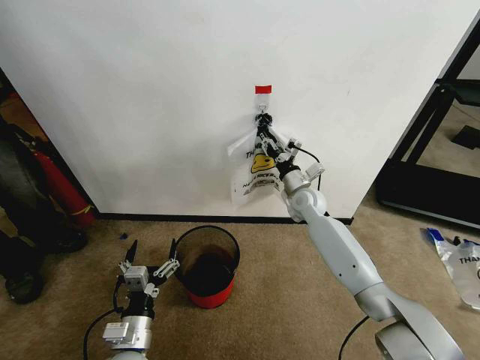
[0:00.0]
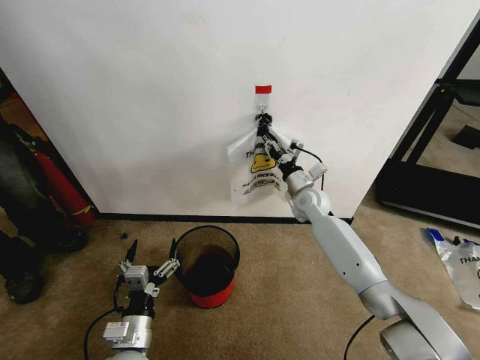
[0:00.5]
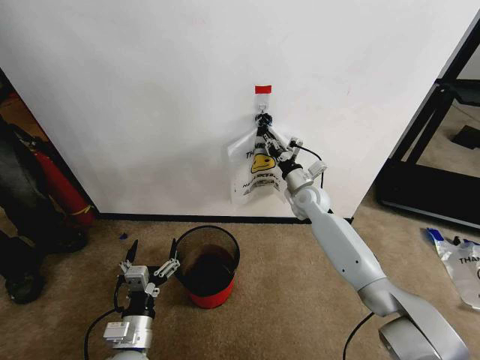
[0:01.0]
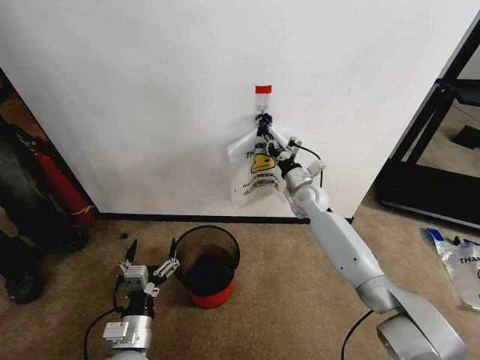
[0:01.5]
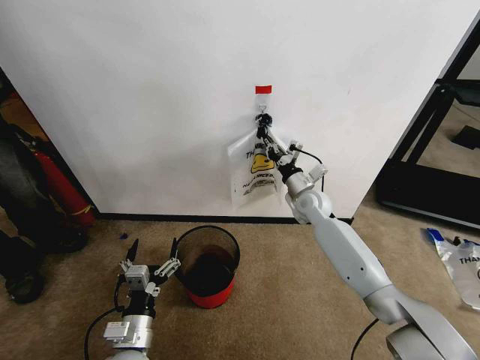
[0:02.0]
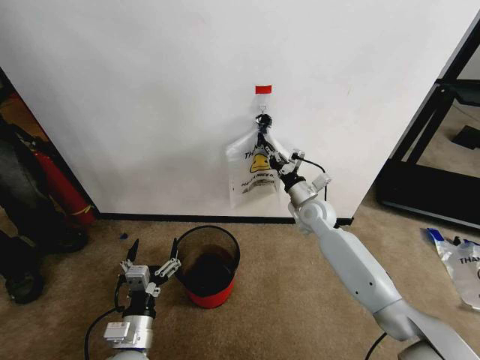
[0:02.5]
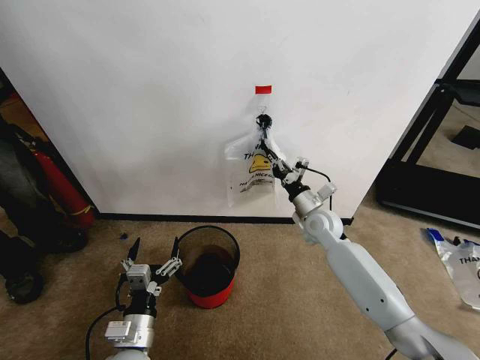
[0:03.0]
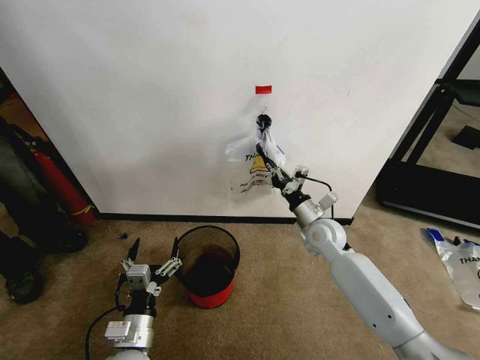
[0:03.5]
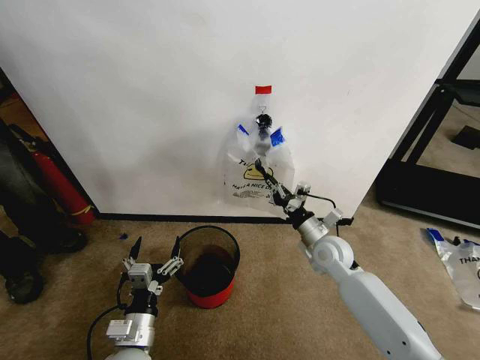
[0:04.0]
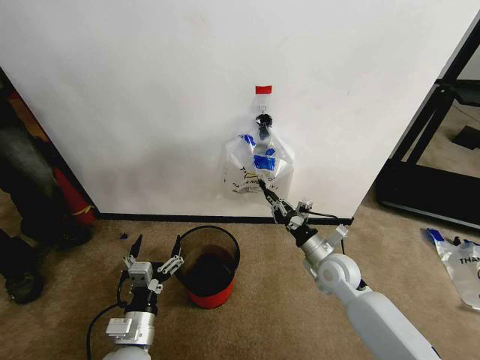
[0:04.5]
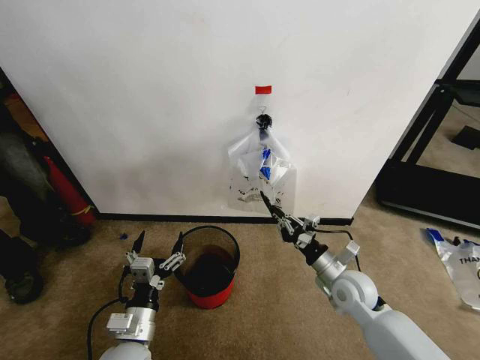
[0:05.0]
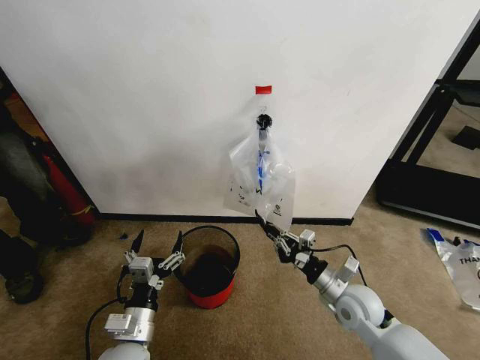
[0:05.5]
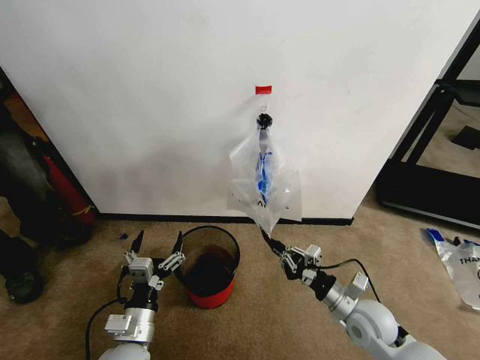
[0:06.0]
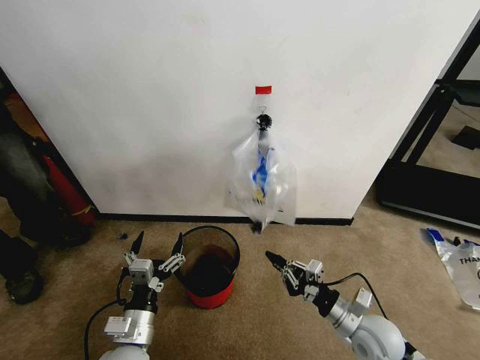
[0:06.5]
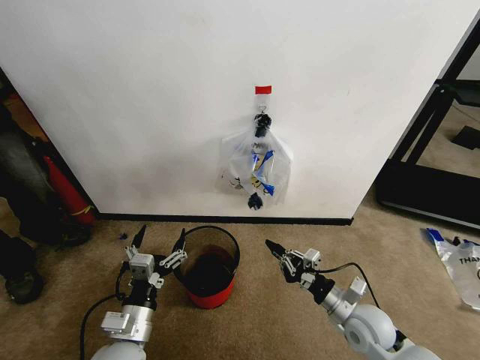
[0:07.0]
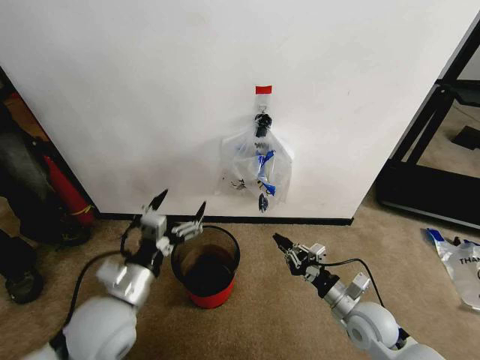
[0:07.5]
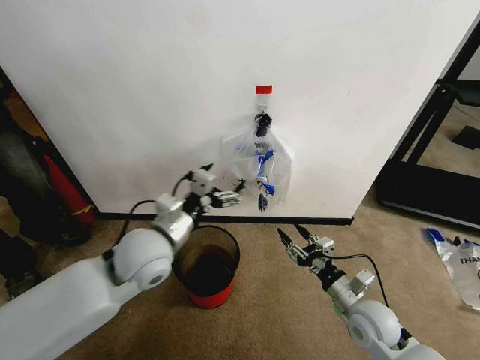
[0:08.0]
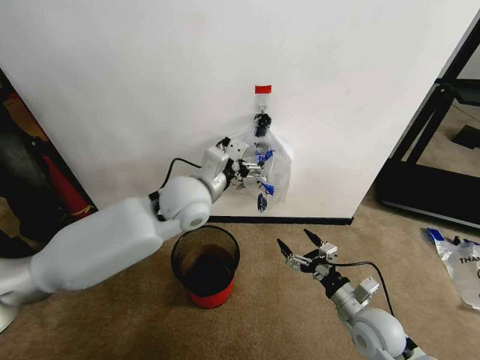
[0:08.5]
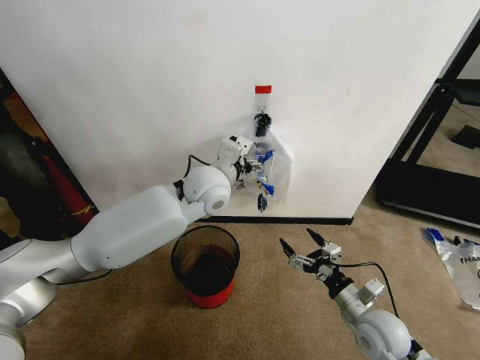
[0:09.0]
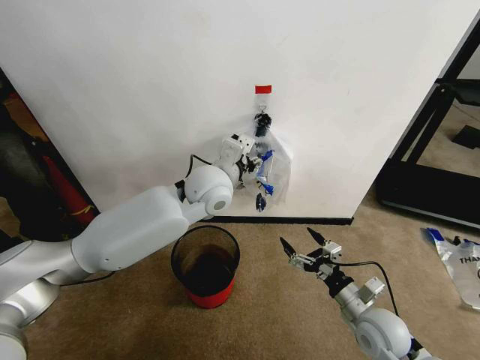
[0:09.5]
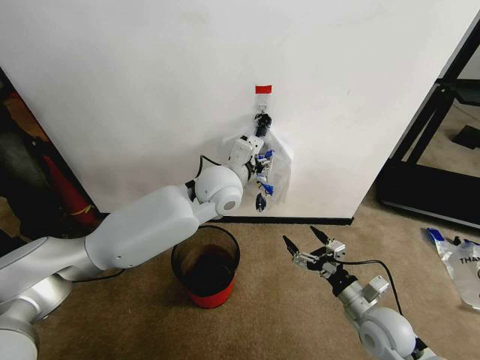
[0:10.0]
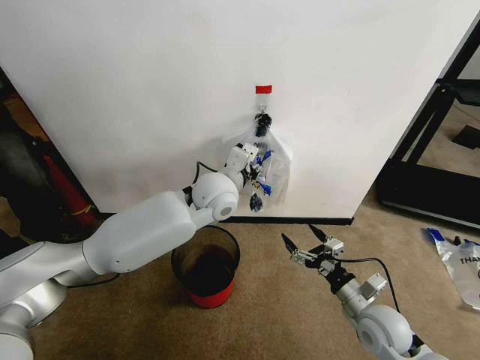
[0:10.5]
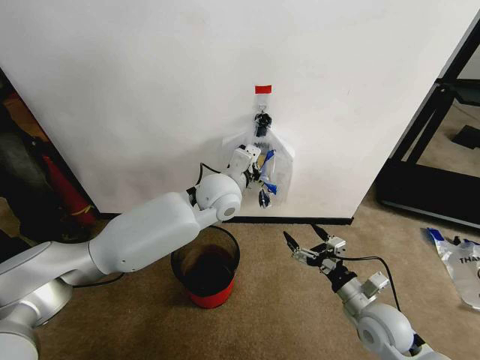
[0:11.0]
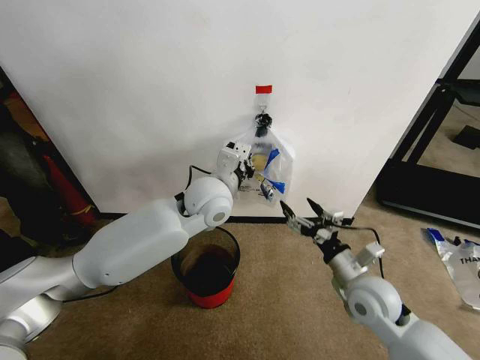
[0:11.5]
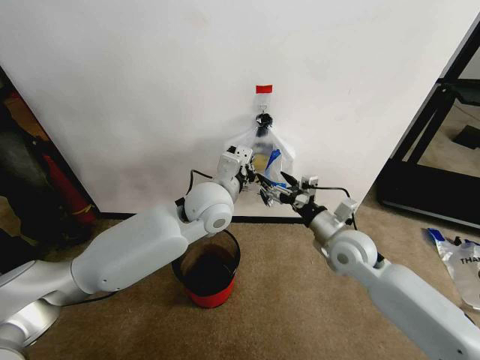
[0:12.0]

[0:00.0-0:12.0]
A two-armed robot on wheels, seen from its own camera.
Task of the whole recording: Pick up the garbage bag from the wall and place it over the trash bin.
0:00.0 to 0:02.0: The right gripper closes its fingers.
0:02.0 to 0:04.0: The right gripper goes some 15 cm backward.
0:04.0 to 0:06.0: The right gripper travels backward by approximately 15 cm.
0:06.0 to 0:08.0: The left gripper is displaced upward and forward by some 20 cm, while the right gripper opens its fingers.
0:08.0 to 0:10.0: The left gripper is displaced to the right and forward by approximately 20 cm, while the right gripper opens.
0:10.0 to 0:12.0: The right gripper moves forward, upward and to the left, some 15 cm. The left gripper closes.

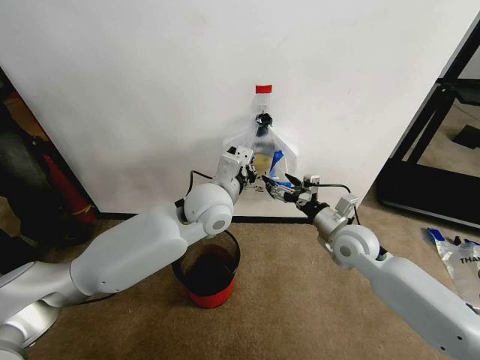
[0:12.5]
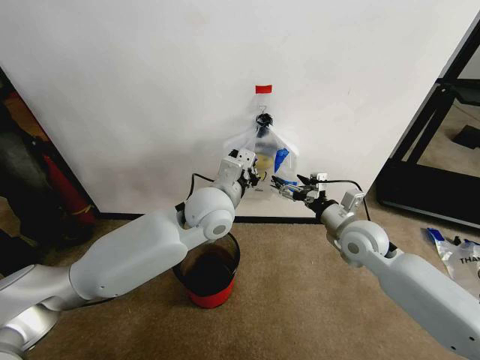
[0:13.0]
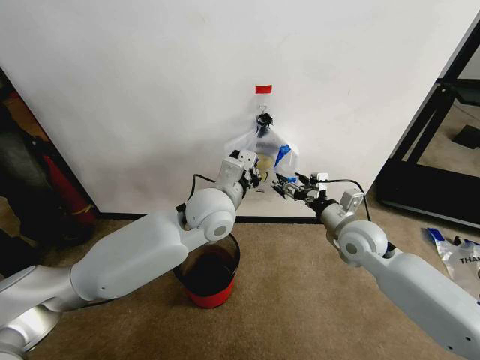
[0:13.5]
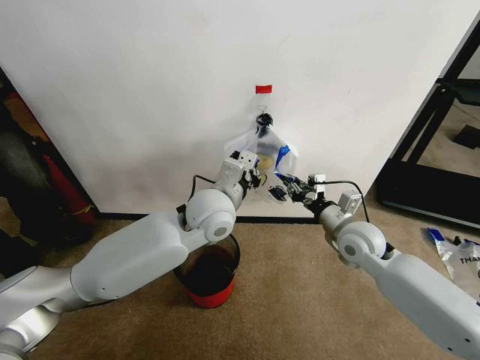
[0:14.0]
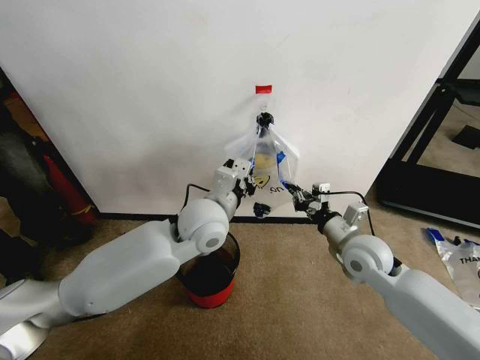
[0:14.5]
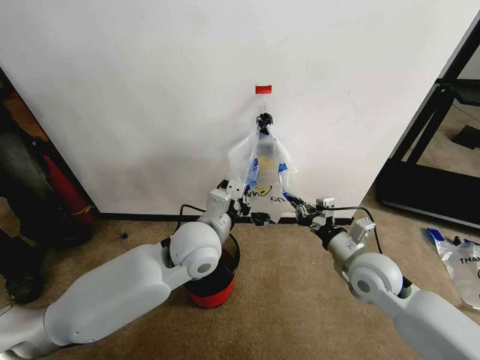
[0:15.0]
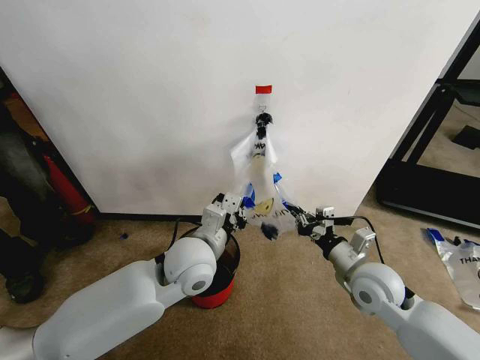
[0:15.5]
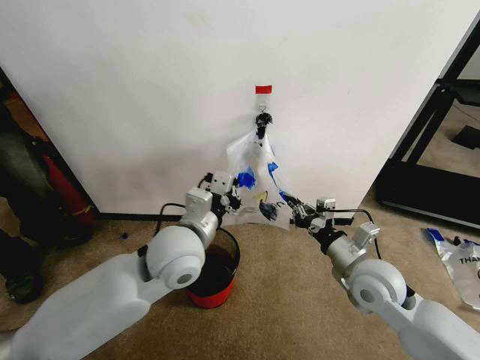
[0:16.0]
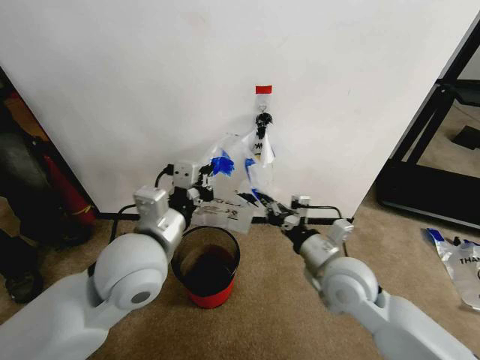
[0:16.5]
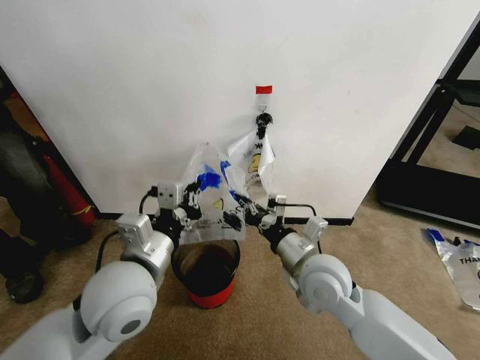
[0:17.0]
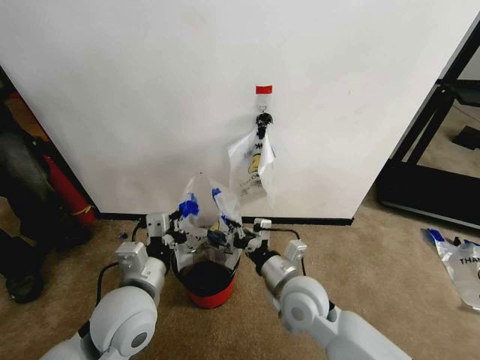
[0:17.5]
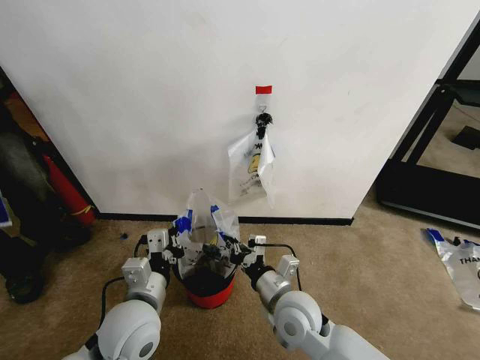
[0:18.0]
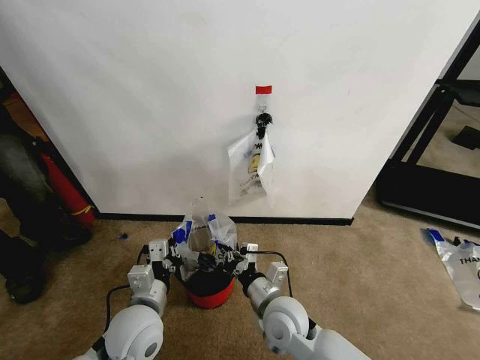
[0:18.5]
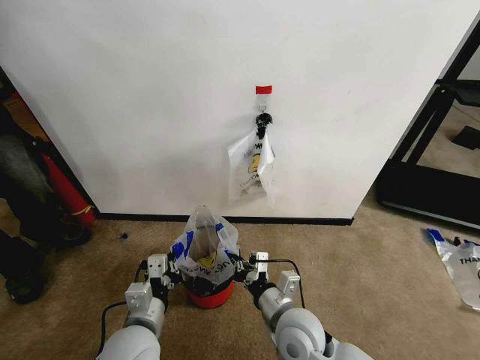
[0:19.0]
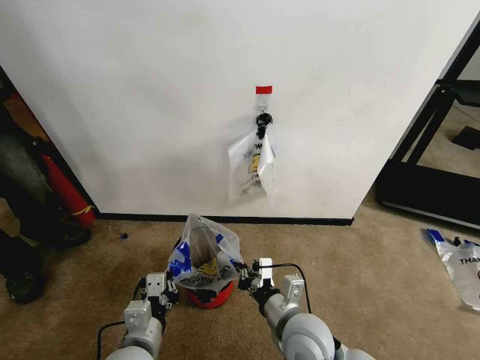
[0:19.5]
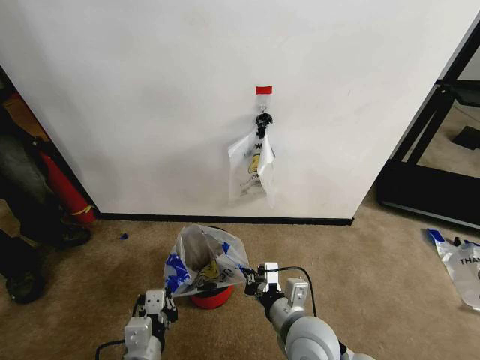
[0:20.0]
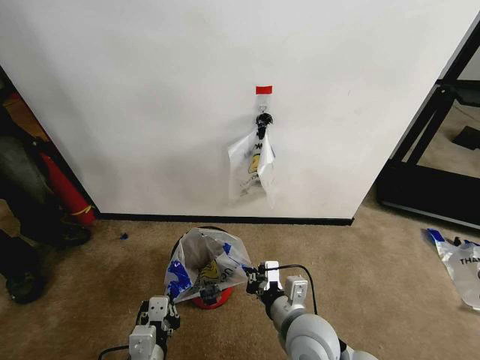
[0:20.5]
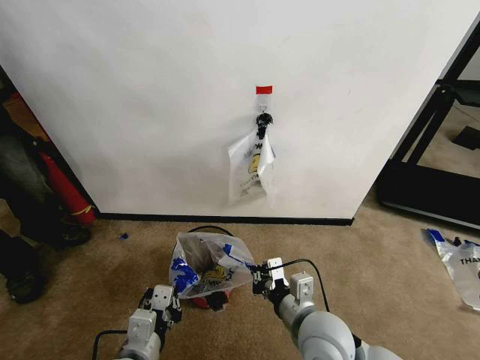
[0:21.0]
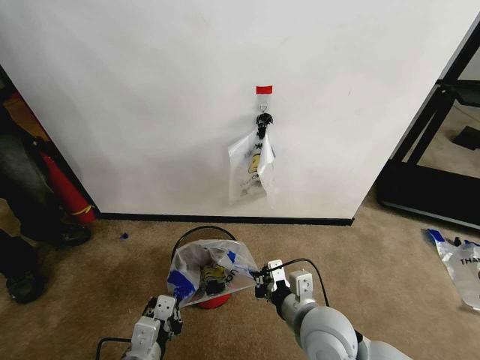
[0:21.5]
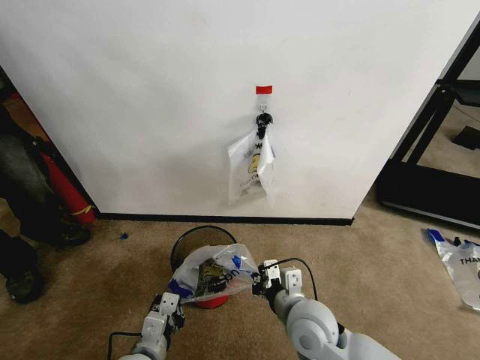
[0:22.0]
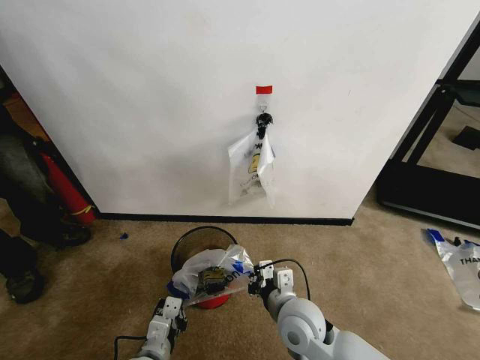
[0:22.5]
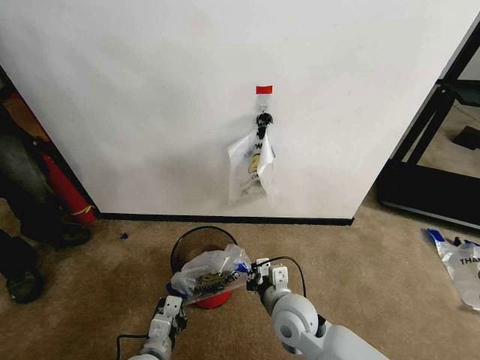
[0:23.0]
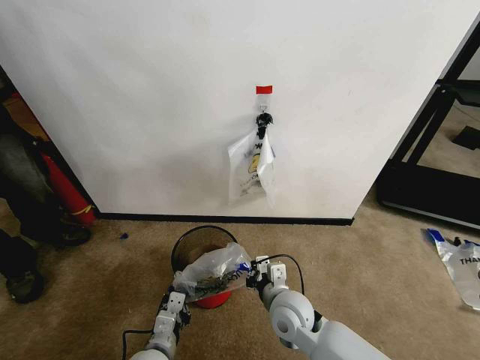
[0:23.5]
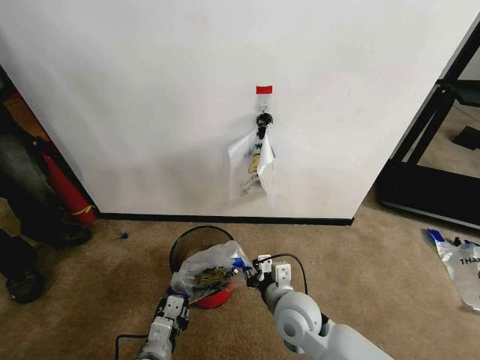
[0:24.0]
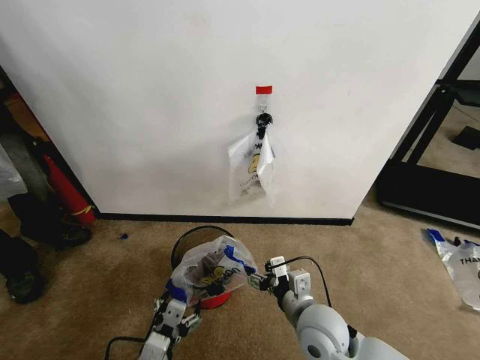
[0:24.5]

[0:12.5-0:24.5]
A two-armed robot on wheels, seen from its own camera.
Task of the whole recording: Pick up the garbage bag from the wall and place it over the trash bin.
0:12.5 to 0:14.5: The right gripper closes its fingers.
0:14.5 to 0:16.5: The right gripper moves to the left and backward, some 10 cm. Meanwhile the left gripper heads backward and to the left, covering roughly 15 cm.
0:16.5 to 0:18.5: The right gripper heads downward and to the left, covering some 15 cm. Meanwhile the left gripper goes some 15 cm downward.
0:18.5 to 0:20.5: The right gripper changes place by some 5 cm. Meanwhile the left gripper goes some 10 cm backward.
0:20.5 to 0:22.5: The left gripper moves downward, some 5 cm.
0:22.5 to 0:24.5: The left gripper shifts by roughly 5 cm, and opens. The right gripper opens.

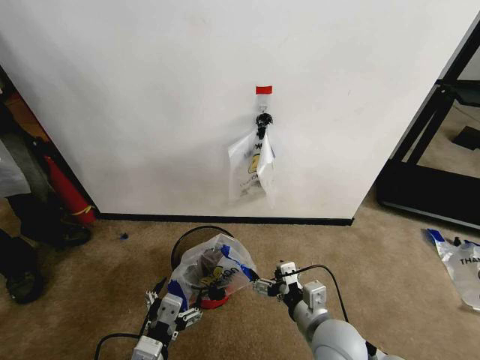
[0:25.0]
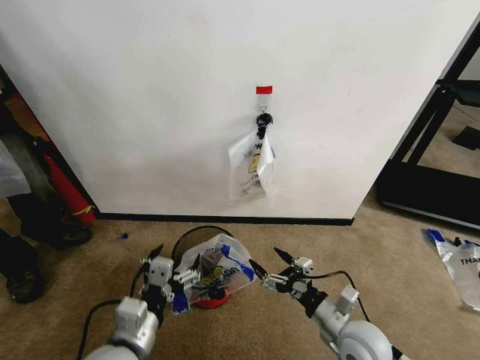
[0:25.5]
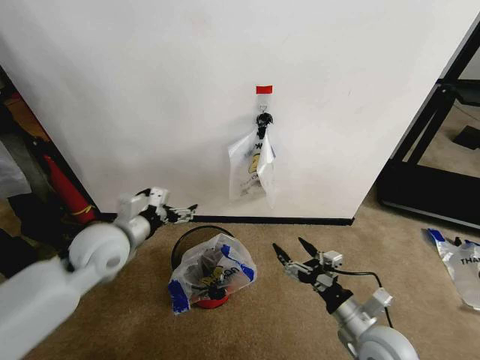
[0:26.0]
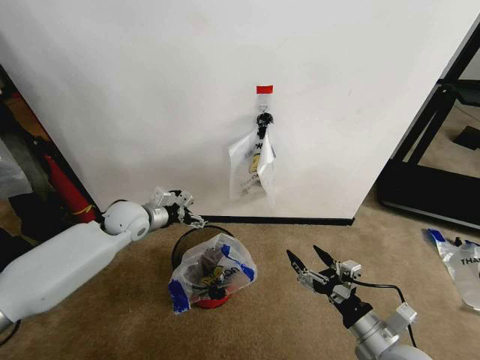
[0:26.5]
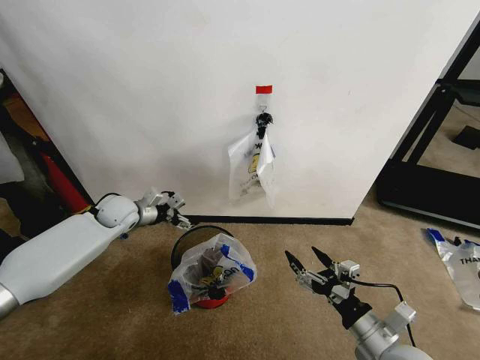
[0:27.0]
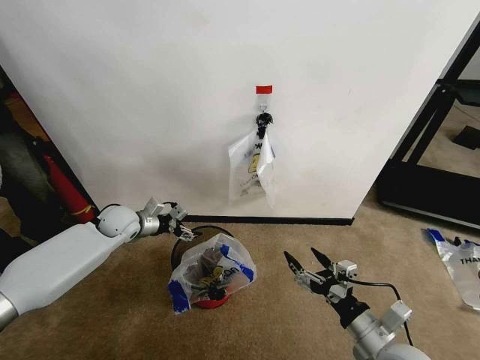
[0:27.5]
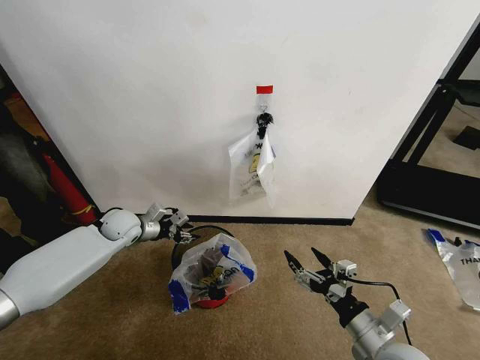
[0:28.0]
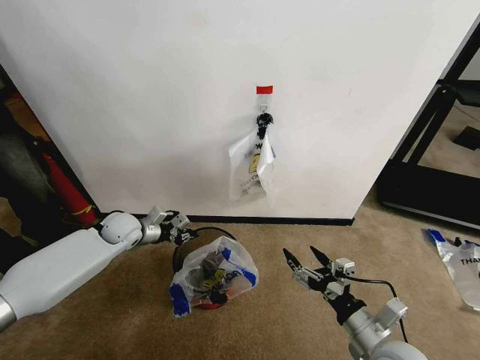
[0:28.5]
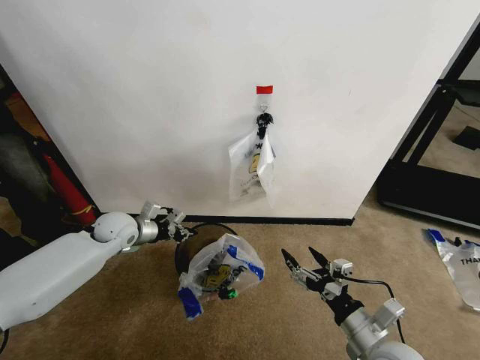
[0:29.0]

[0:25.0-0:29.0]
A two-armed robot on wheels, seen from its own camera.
Task of the whole recording: Pick up the garbage bag from the wall and place it over the trash bin.
0:25.0 to 0:27.0: The left gripper travels forward by approximately 40 cm. The right gripper travels to the right by approximately 10 cm.
0:27.0 to 0:29.0: The left gripper closes.
